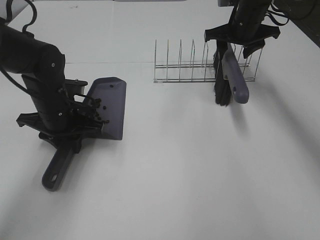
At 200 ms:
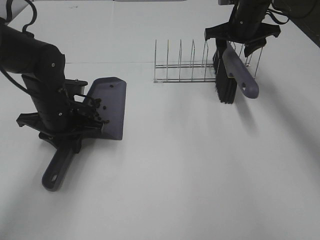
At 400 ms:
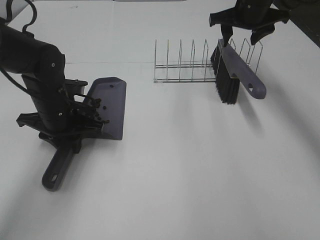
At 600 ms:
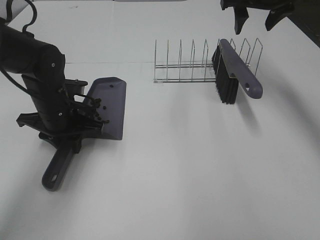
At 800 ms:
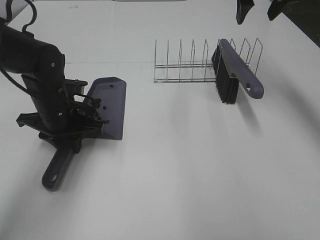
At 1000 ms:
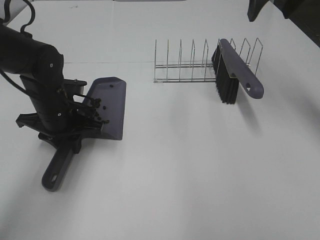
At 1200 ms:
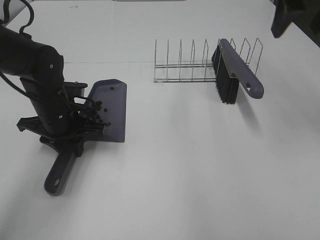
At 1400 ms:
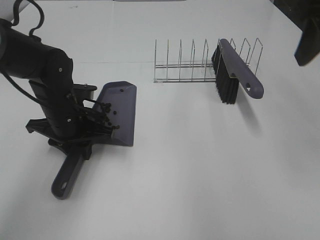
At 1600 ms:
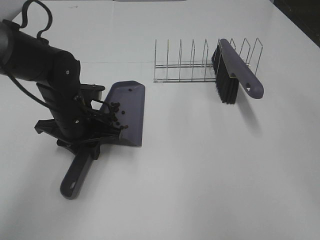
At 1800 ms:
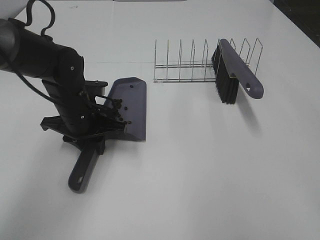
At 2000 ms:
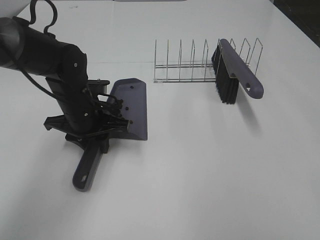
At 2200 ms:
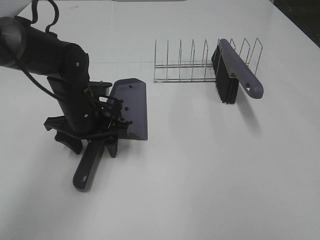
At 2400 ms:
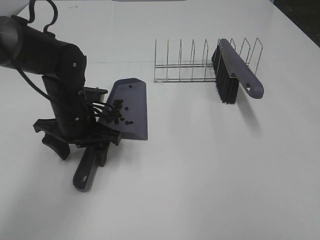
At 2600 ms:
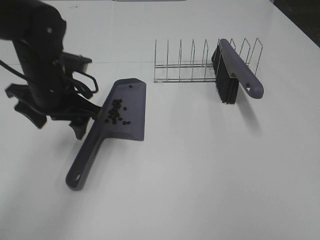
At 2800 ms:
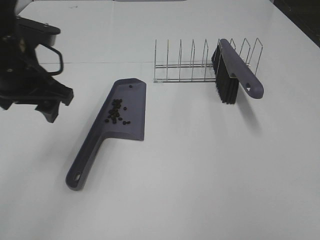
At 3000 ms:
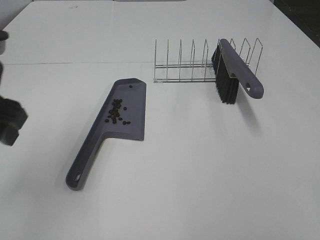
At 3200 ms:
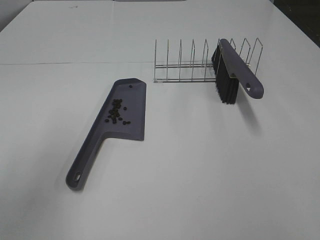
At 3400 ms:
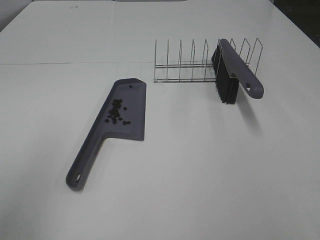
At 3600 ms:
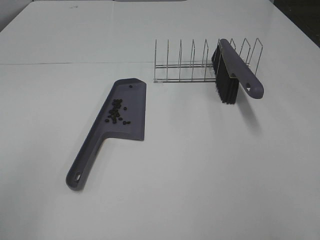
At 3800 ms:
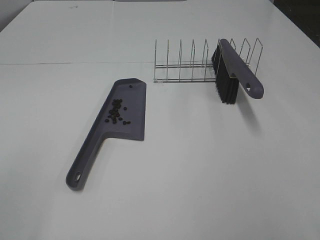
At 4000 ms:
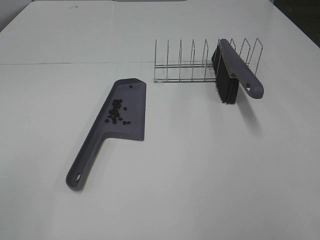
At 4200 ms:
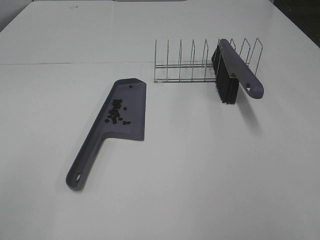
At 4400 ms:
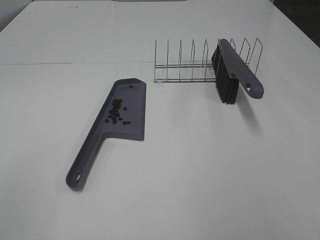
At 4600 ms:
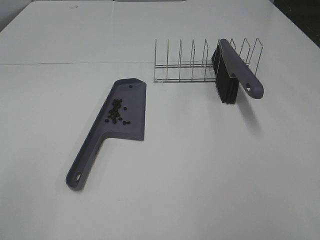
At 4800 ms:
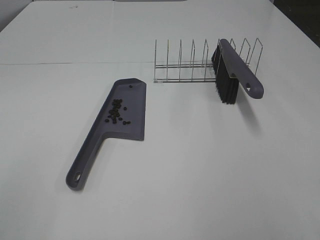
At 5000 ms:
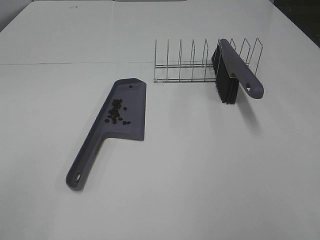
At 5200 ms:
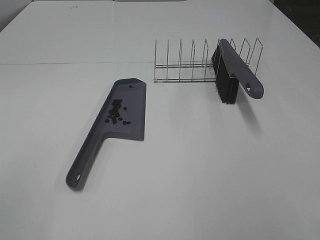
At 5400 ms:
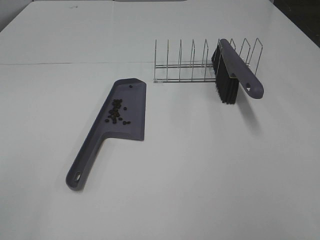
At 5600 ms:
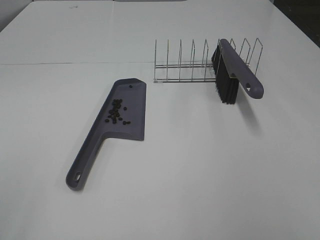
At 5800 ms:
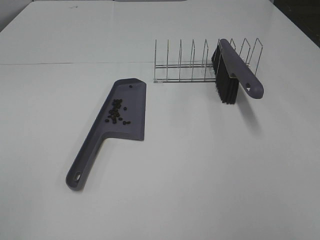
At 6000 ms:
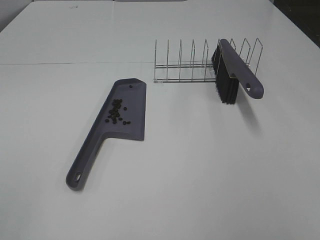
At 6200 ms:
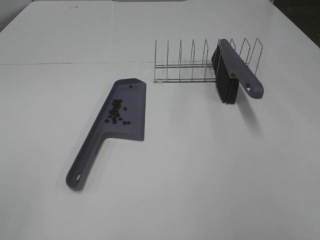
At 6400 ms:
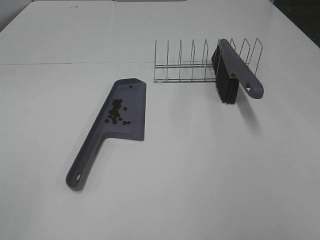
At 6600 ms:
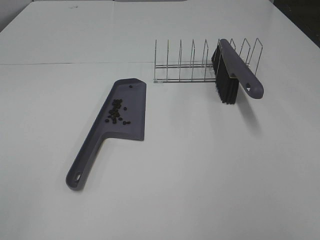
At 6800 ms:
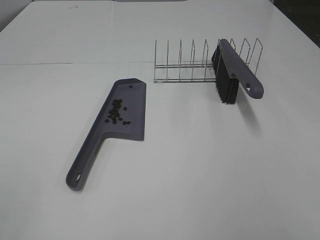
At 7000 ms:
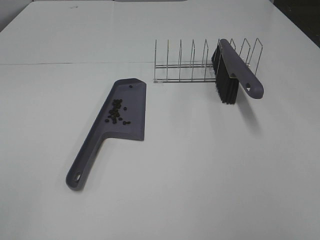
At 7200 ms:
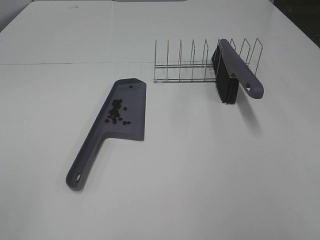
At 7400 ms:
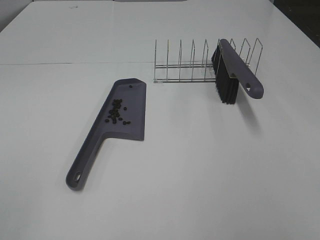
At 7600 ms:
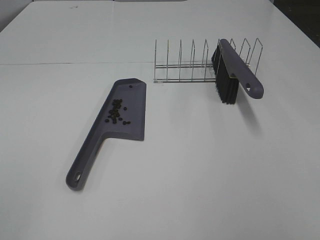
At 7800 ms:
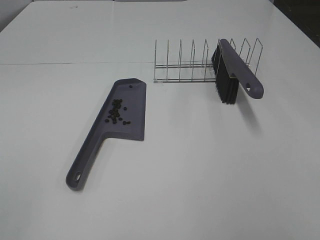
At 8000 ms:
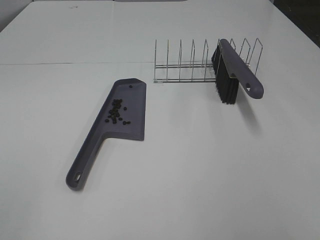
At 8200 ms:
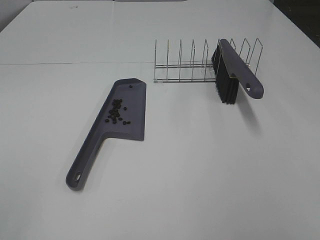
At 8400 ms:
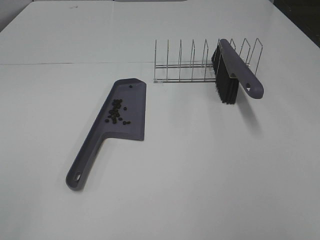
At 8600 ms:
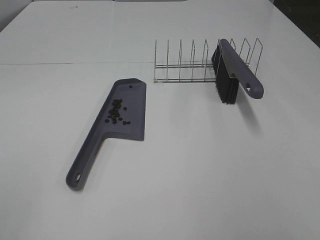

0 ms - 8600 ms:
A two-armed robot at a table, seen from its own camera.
Task of the whole recording: Sweep Coffee Bean.
0 ms - 1400 ms: The right gripper is displaced backward and upward by some 30 cm.
1400 ms - 2800 ms: The right gripper travels backward by some 20 cm. The left gripper heads upward, covering some 15 cm, and opens.
2800 ms - 4400 ms: The left gripper heads backward and to the left, covering approximately 30 cm.
7200 ms - 8600 ms: Both grippers stay about where they are.
